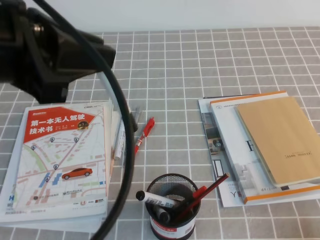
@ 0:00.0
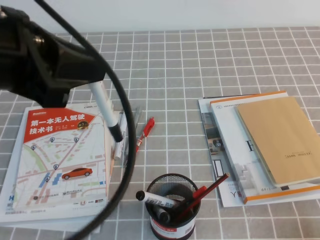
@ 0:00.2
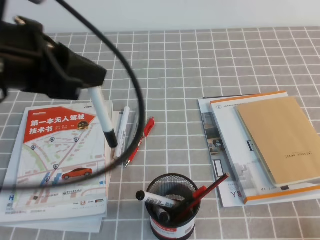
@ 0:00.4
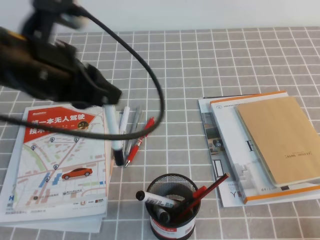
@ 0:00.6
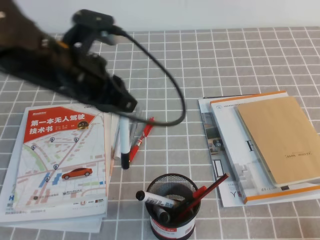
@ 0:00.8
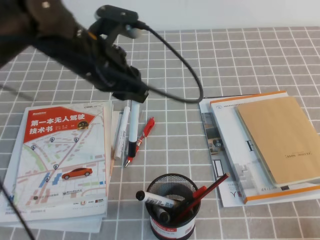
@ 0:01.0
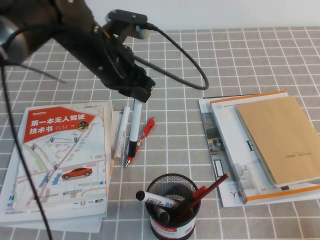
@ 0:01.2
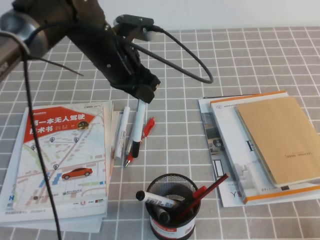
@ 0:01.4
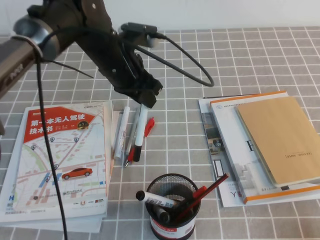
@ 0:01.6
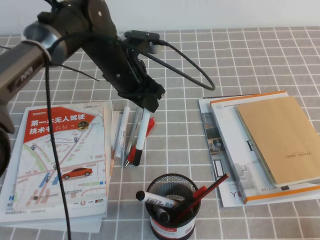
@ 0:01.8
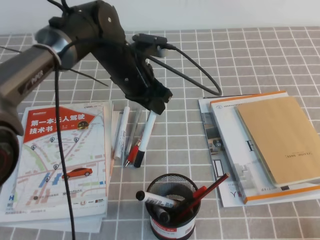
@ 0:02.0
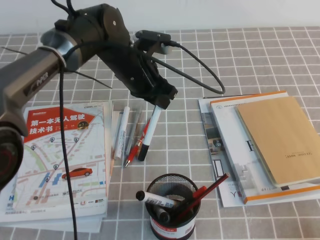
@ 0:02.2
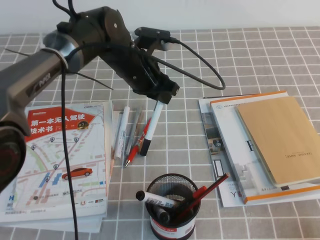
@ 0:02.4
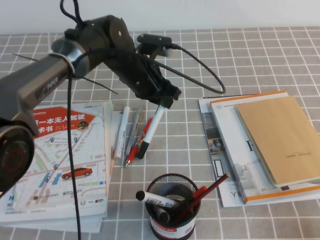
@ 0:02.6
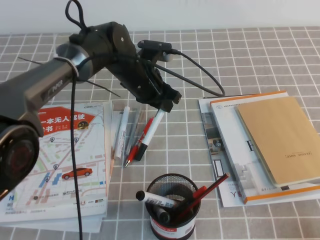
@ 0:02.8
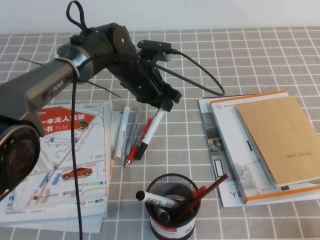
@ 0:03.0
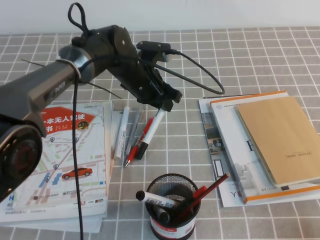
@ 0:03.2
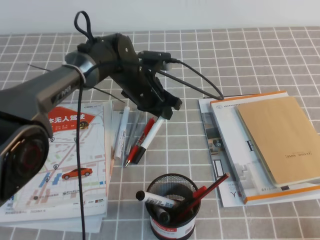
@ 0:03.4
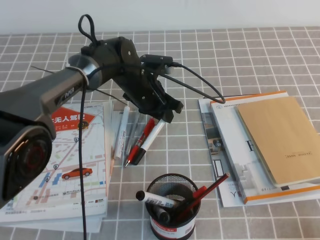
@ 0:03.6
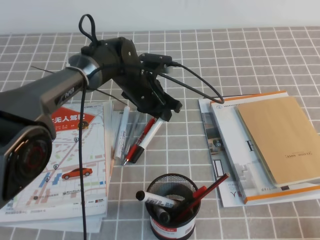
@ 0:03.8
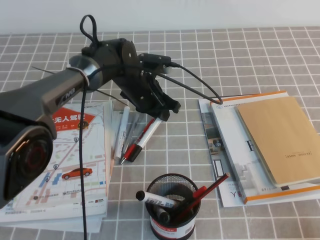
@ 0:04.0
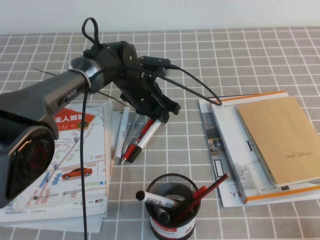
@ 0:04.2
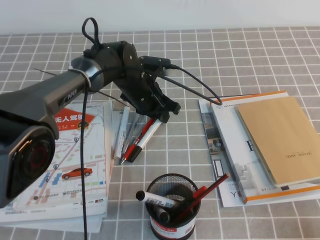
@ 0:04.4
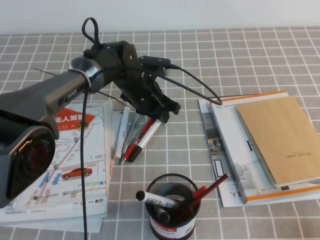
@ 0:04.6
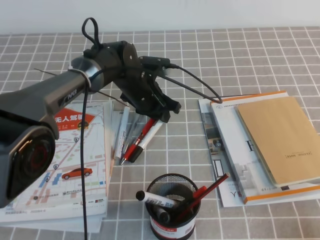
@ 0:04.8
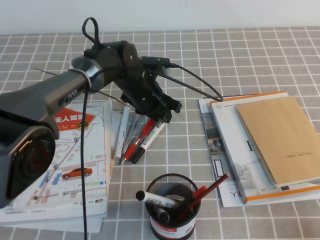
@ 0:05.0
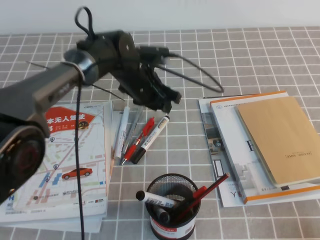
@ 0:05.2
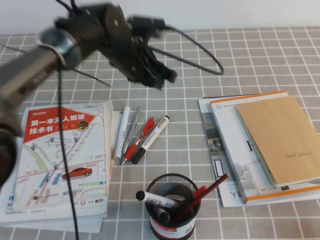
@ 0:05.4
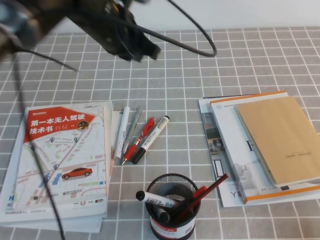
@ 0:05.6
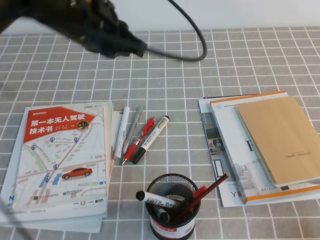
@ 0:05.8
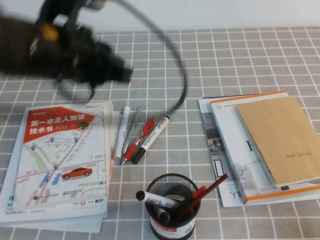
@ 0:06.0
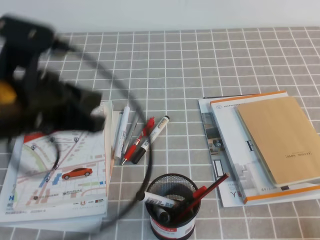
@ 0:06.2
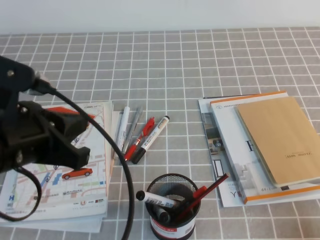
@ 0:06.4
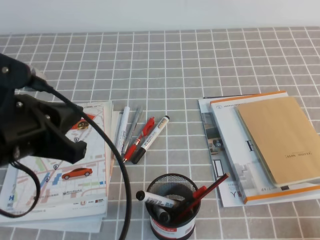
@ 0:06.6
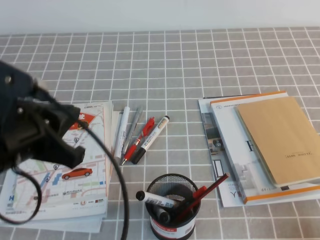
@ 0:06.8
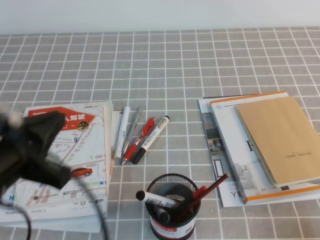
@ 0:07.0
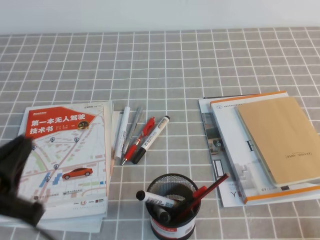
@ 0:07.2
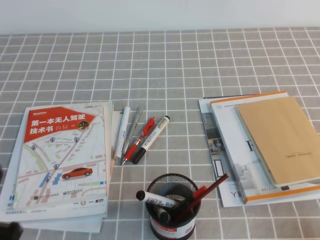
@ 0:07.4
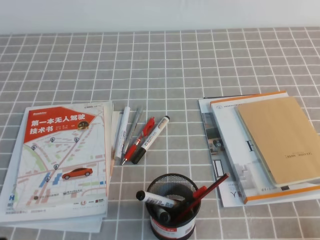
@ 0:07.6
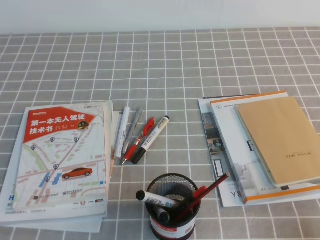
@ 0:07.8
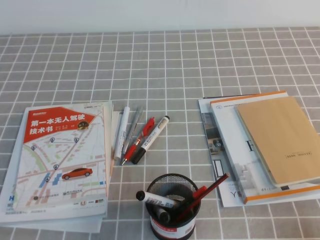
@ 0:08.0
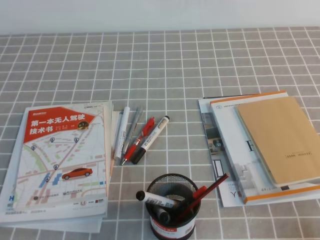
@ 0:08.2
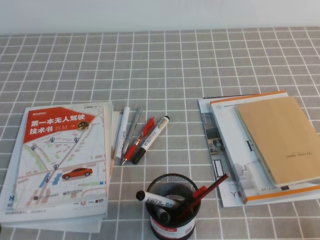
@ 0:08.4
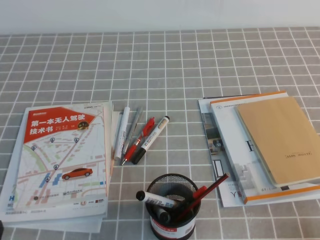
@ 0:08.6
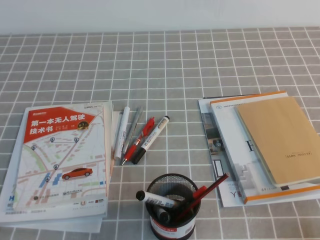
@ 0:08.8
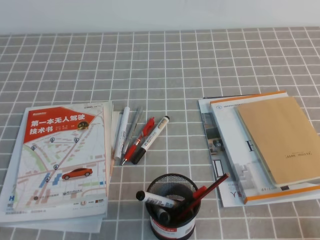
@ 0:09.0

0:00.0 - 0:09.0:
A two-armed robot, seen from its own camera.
Step, 0:00.0 - 0:09.0: Pick up the pen from the pen holder.
0:00.0 - 0:01.6: The left gripper goes about 30 cm forward, downward and to the right.
0:01.6 - 0:03.0: The left gripper heads downward, covering approximately 5 cm.
0:03.0 - 0:04.4: The grippers move only a little.
0:04.4 - 0:06.0: The left gripper shifts about 30 cm upward, backward and to the left.
0:06.0 - 0:07.6: The left gripper travels backward, downward and to the left by approximately 30 cm.
0:07.6 - 0:09.0: The left gripper shifts by some 5 cm.
